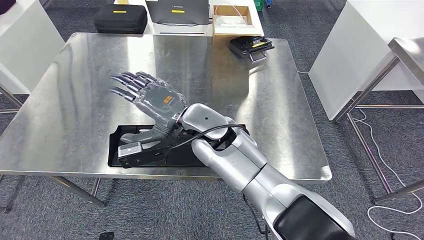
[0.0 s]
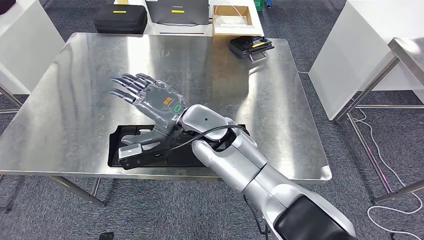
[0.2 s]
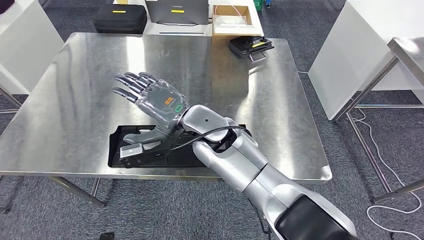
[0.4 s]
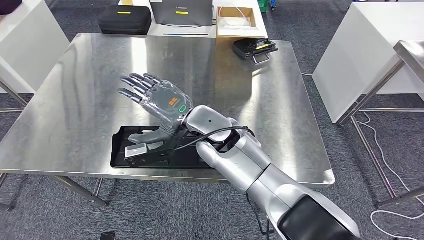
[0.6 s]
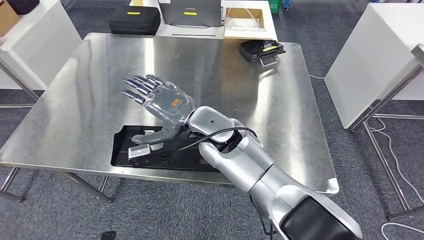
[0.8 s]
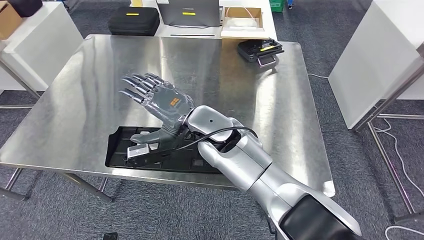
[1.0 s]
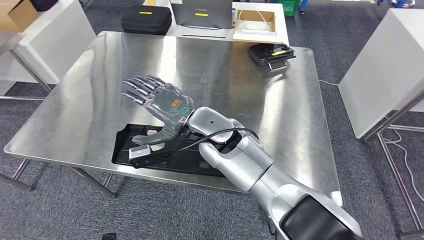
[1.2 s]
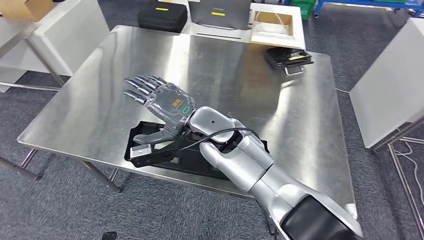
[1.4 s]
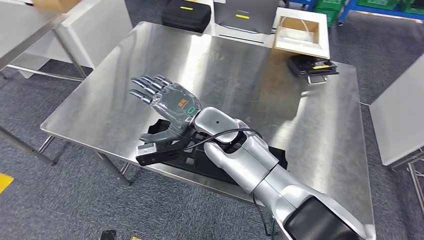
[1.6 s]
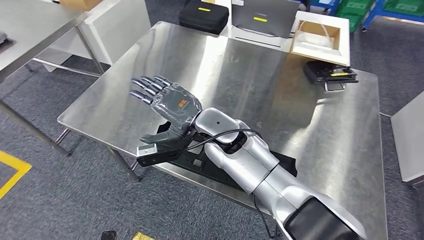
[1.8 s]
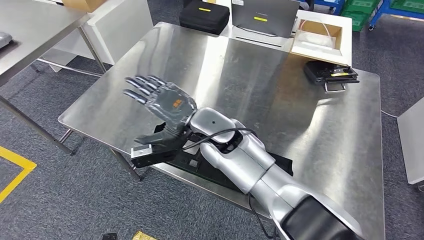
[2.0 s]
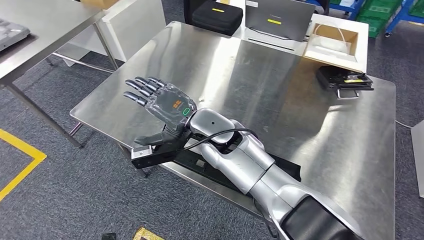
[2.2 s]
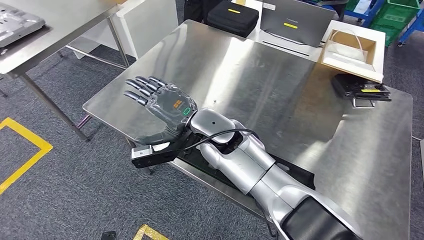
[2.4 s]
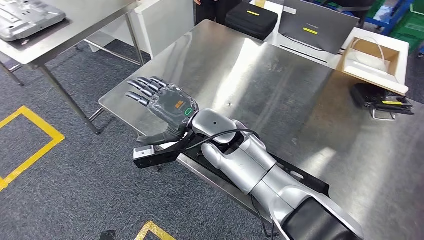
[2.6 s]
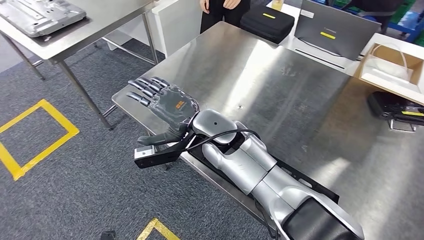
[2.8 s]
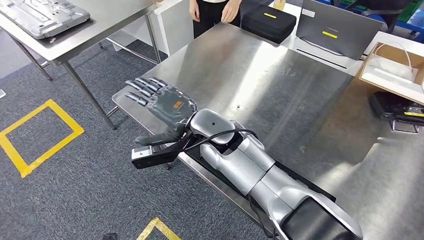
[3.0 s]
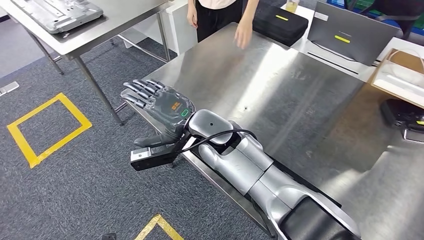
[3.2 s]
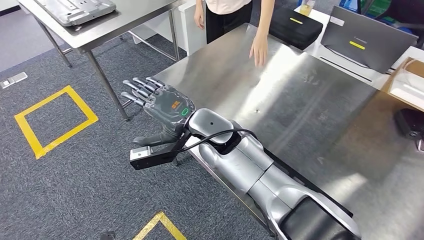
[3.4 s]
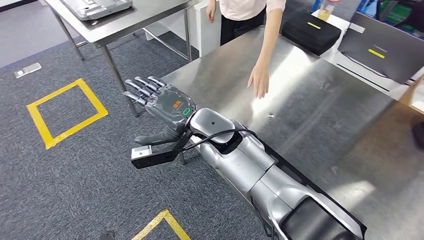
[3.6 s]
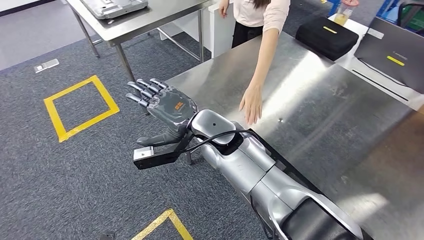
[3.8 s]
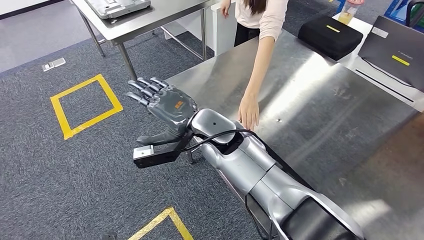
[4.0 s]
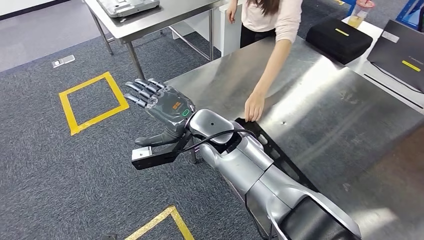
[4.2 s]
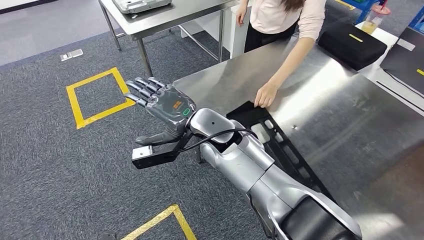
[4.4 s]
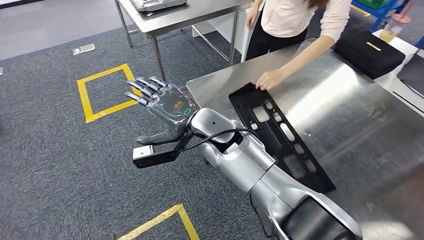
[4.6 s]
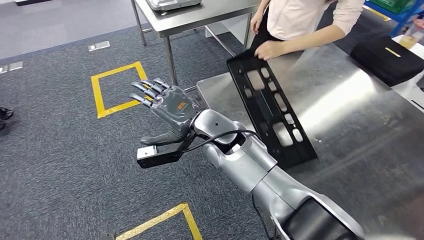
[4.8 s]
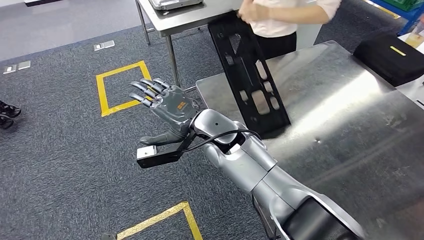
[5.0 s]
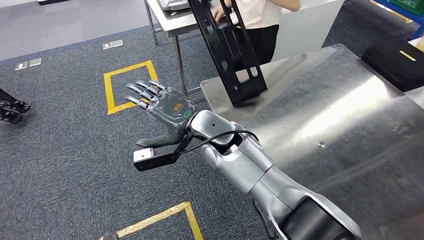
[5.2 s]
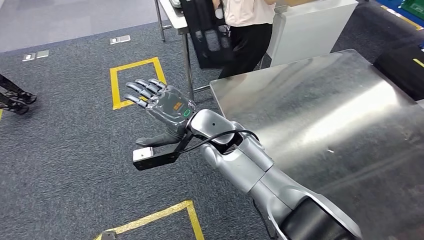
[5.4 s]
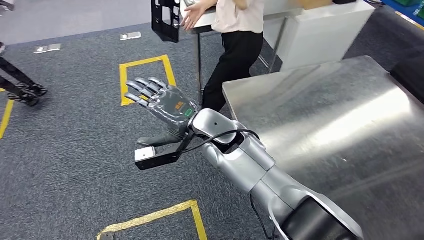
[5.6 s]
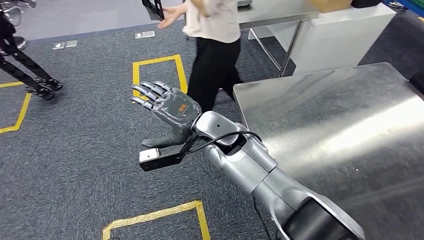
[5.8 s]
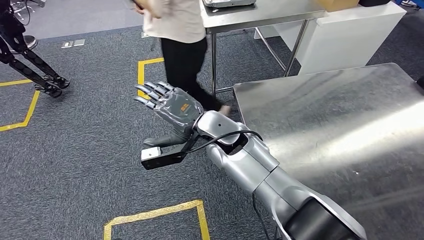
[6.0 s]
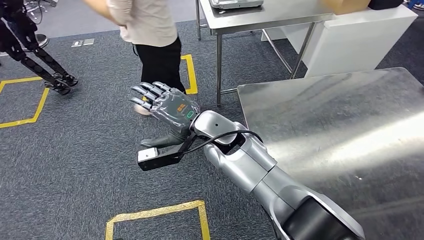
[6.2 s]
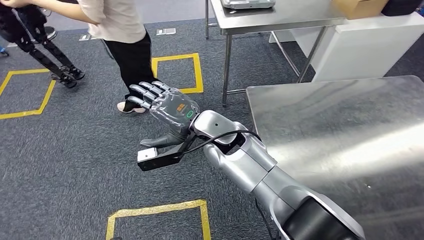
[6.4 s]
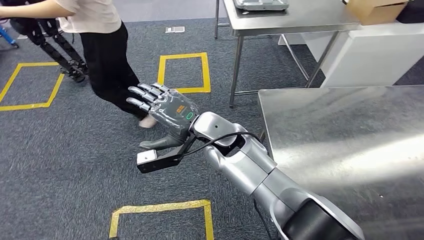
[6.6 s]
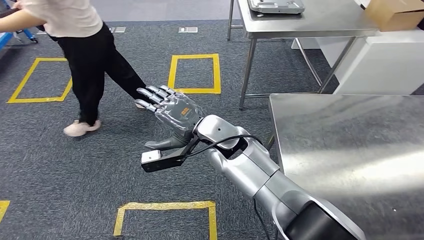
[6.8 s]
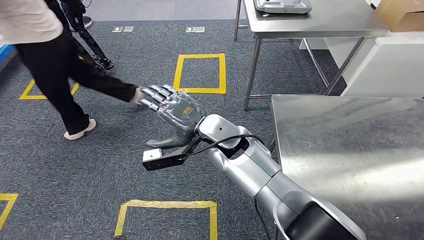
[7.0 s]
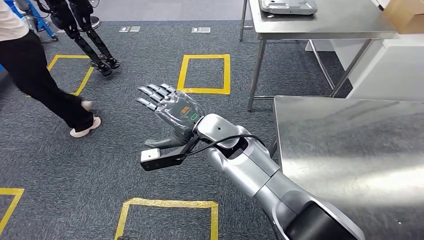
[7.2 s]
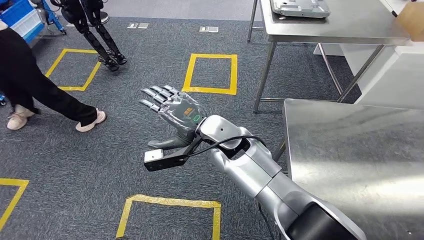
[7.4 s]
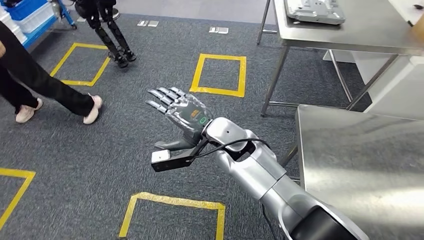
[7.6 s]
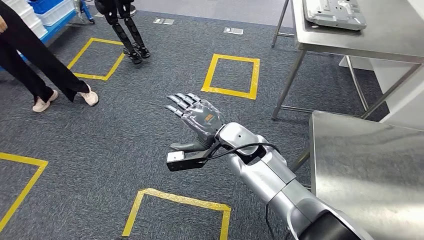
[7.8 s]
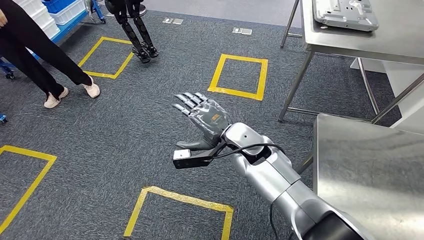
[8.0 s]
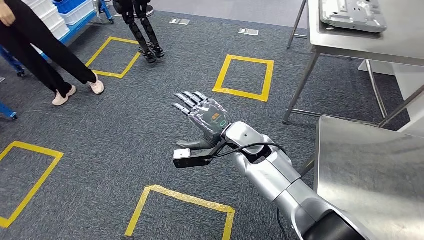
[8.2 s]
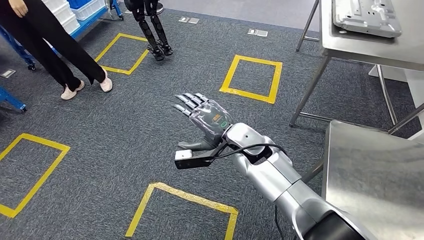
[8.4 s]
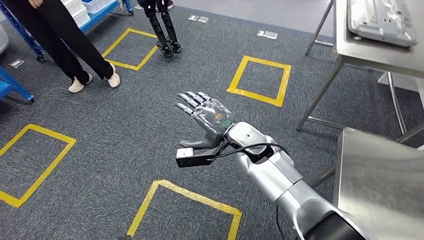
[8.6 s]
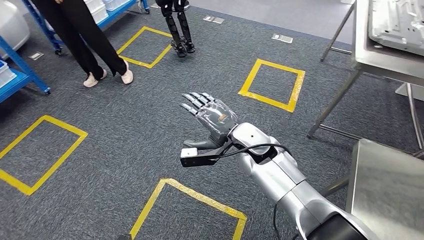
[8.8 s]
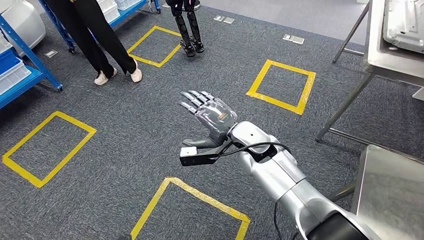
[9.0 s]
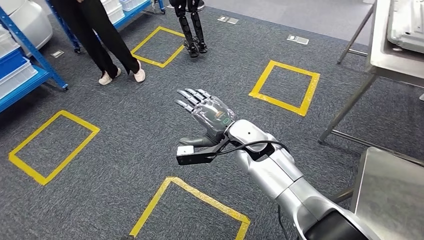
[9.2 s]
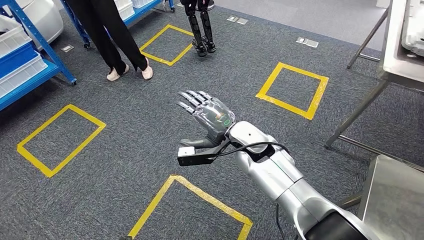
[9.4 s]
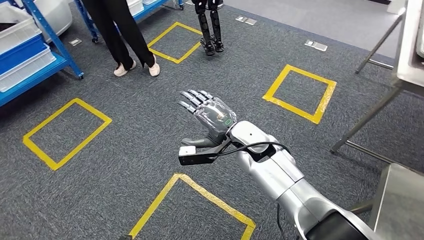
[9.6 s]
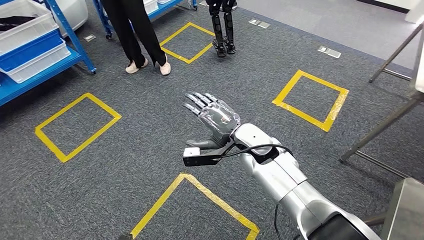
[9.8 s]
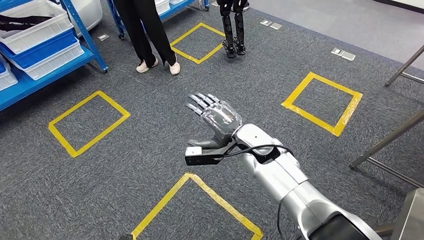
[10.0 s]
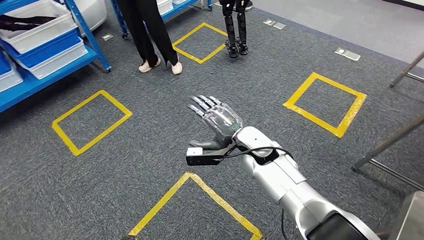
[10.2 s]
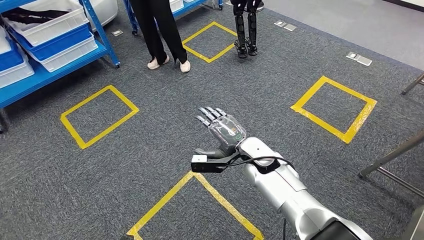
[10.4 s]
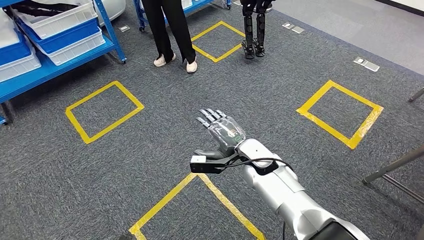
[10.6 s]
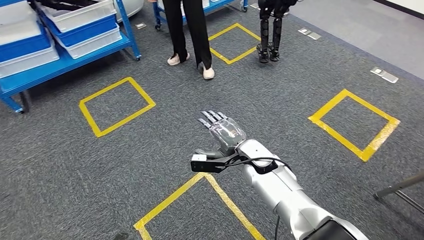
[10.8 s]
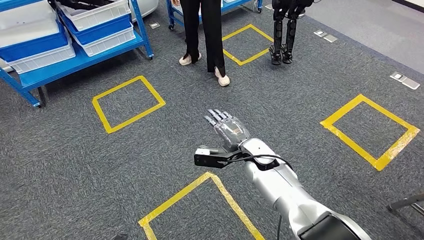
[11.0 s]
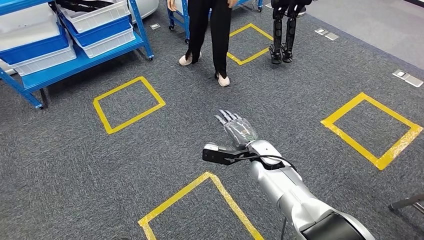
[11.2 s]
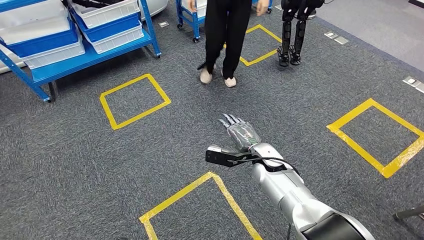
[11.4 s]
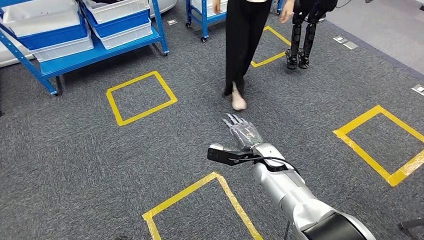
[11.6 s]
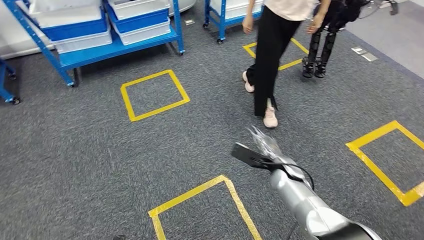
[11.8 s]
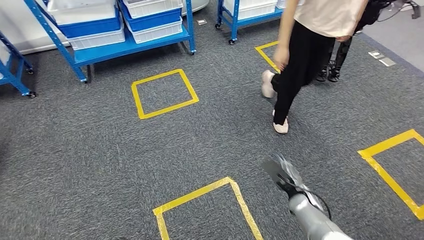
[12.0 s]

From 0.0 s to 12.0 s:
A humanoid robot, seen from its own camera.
Step, from 0.0 s to 4.6 s: Insert the large material into the corresponding slot on the workbench.

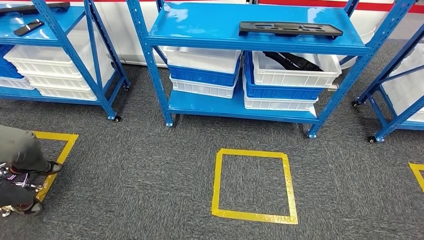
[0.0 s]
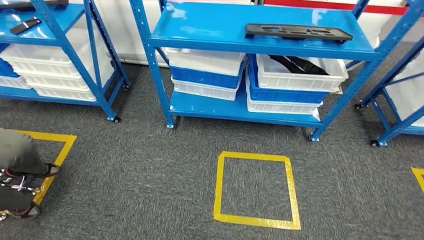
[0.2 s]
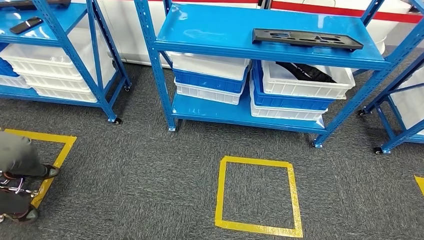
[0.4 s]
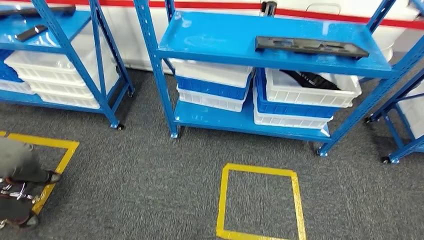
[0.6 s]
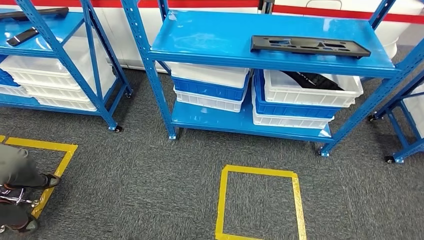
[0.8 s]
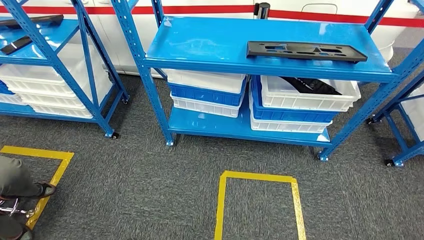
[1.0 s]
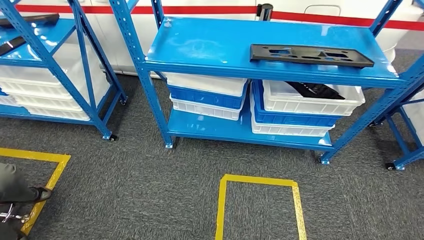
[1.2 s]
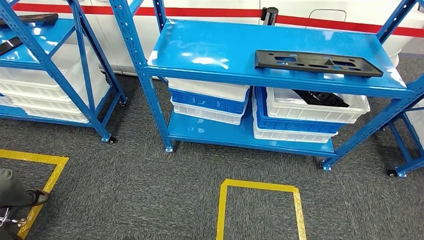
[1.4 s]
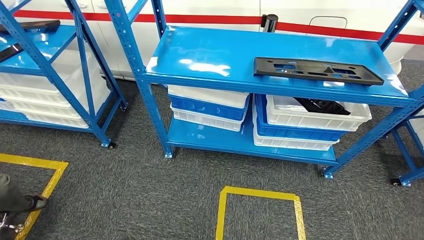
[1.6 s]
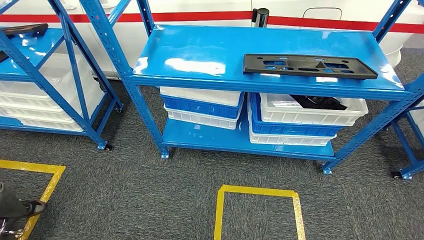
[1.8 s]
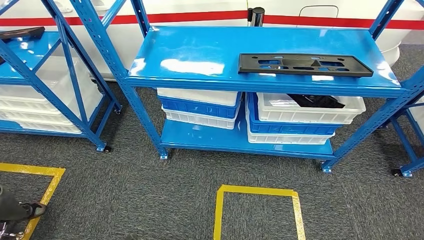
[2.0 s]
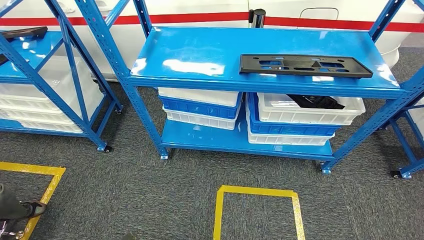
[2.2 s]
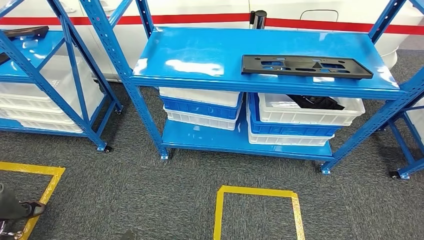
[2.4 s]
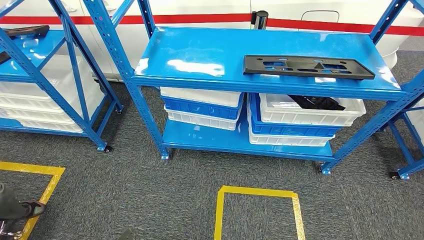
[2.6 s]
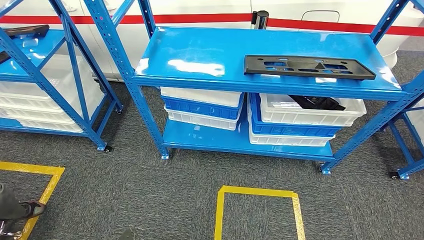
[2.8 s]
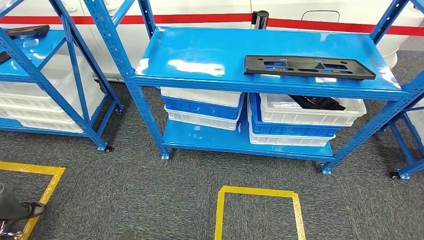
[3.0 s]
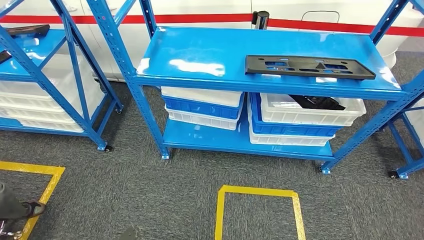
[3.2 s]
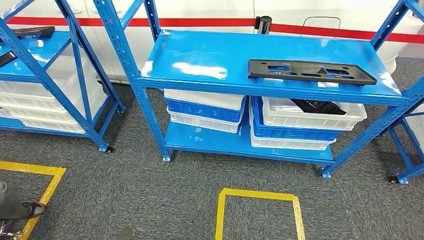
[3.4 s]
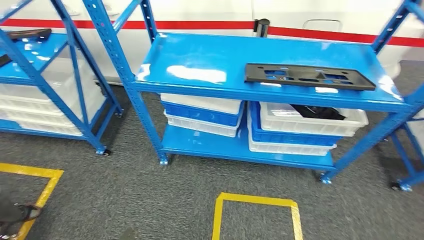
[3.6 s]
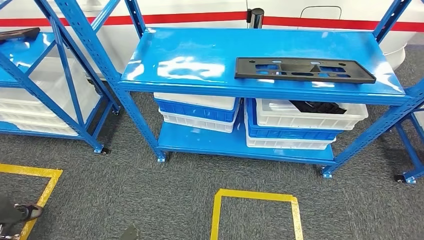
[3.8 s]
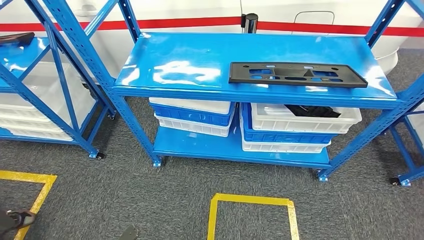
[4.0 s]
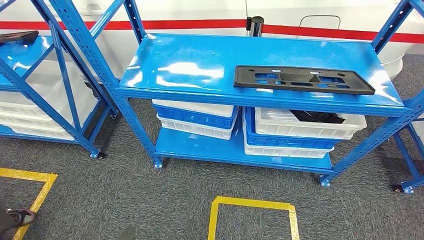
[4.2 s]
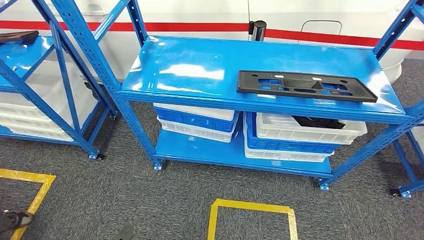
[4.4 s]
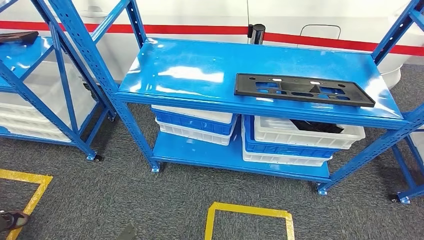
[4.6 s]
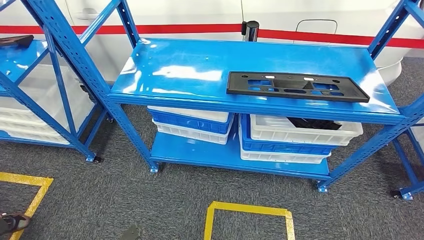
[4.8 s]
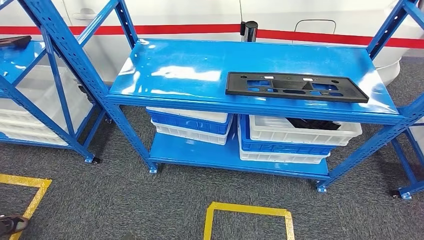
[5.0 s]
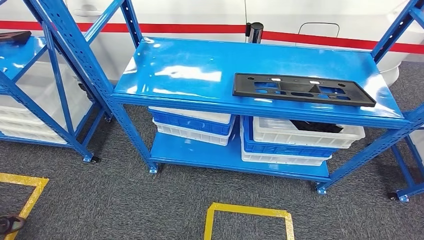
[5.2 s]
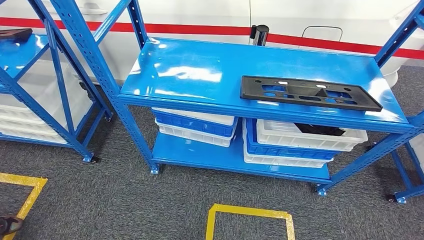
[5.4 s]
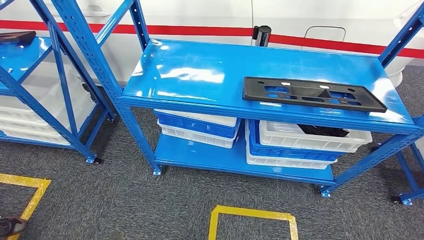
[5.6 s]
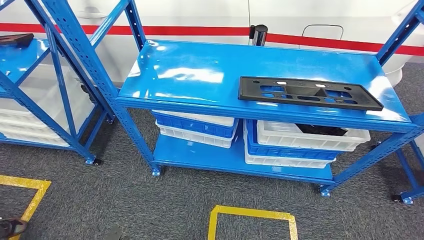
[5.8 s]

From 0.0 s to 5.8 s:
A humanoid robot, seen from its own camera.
Step, from 0.0 s to 5.8 s: Return to the initial position at the shelf.
